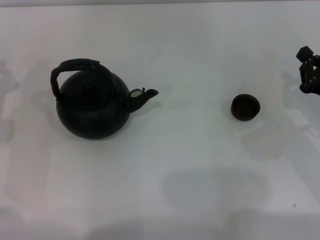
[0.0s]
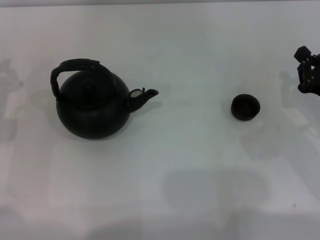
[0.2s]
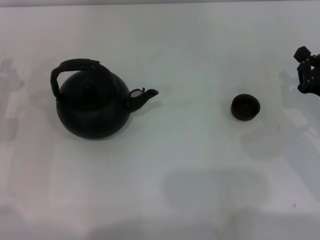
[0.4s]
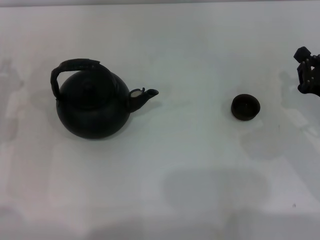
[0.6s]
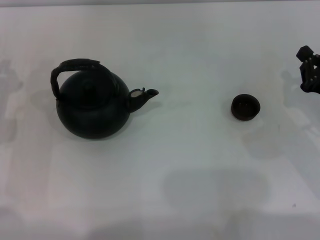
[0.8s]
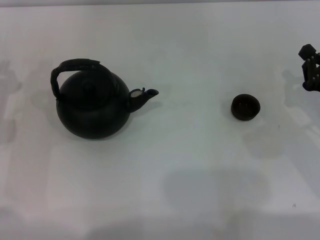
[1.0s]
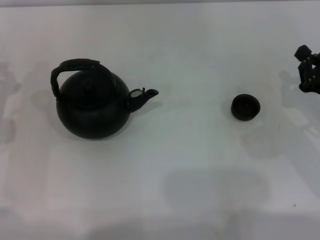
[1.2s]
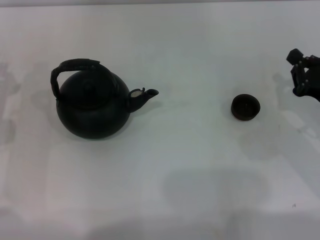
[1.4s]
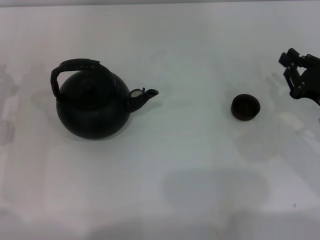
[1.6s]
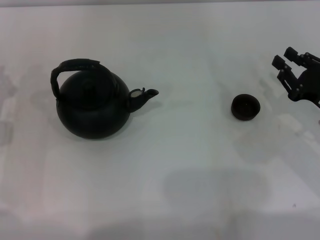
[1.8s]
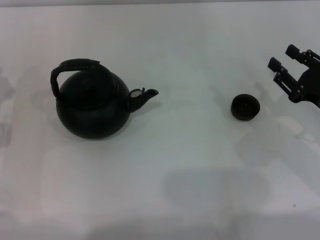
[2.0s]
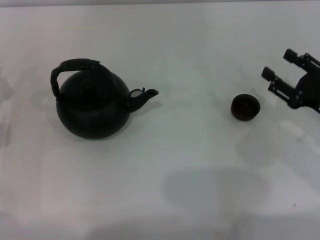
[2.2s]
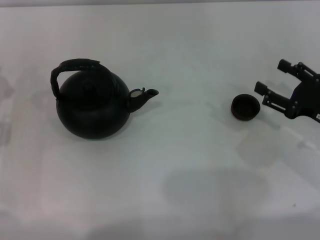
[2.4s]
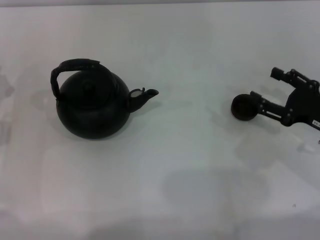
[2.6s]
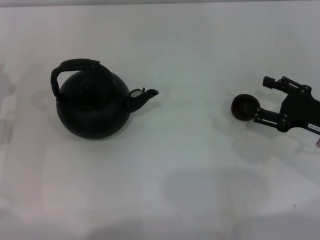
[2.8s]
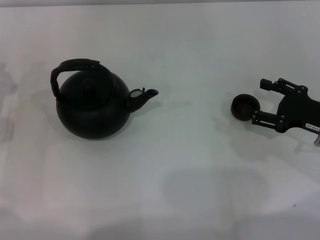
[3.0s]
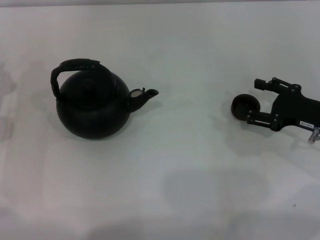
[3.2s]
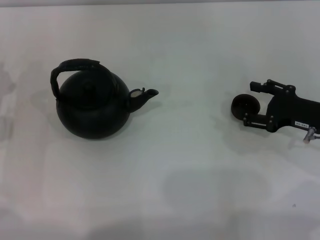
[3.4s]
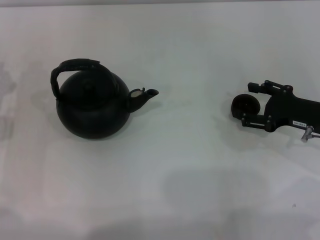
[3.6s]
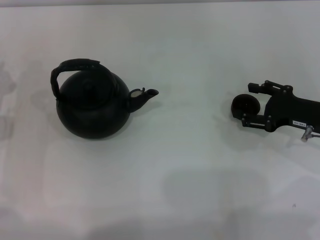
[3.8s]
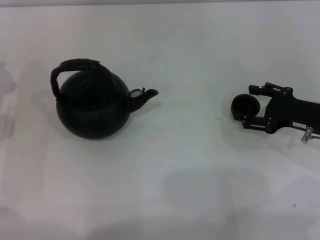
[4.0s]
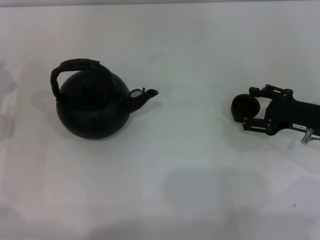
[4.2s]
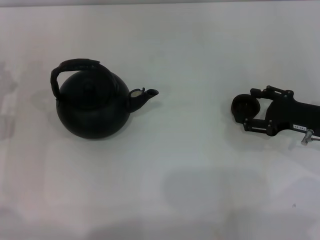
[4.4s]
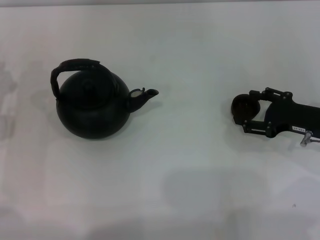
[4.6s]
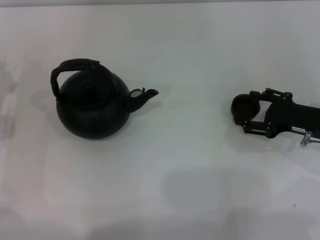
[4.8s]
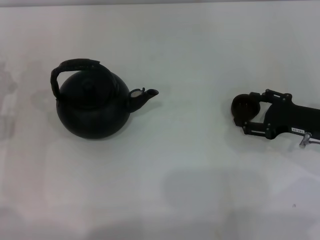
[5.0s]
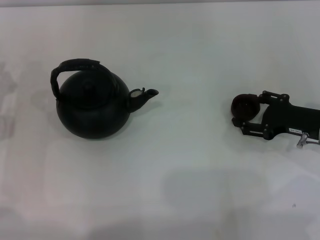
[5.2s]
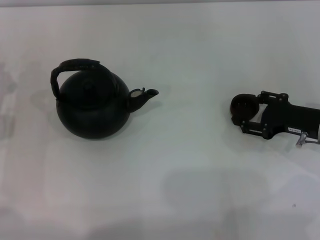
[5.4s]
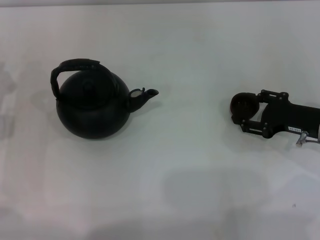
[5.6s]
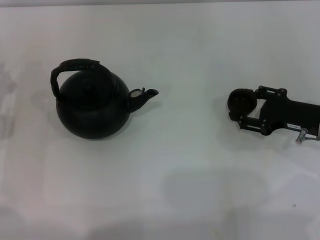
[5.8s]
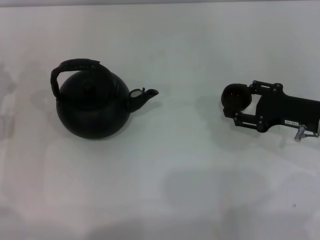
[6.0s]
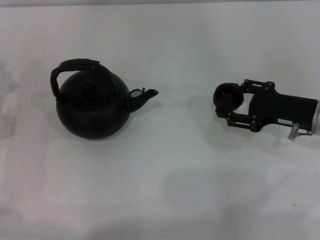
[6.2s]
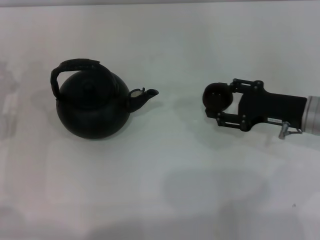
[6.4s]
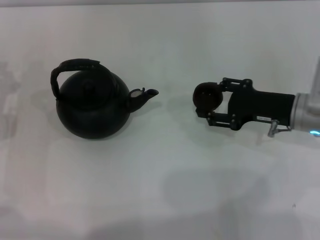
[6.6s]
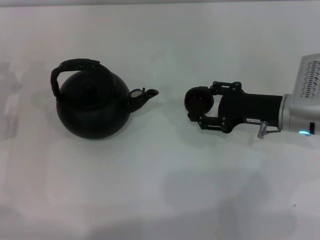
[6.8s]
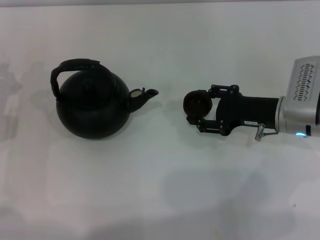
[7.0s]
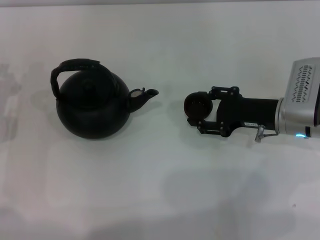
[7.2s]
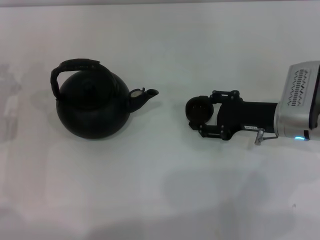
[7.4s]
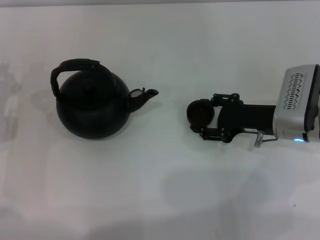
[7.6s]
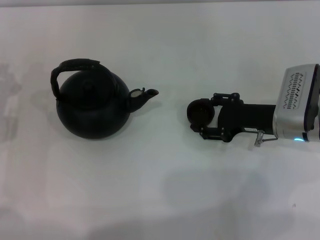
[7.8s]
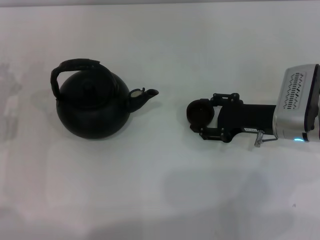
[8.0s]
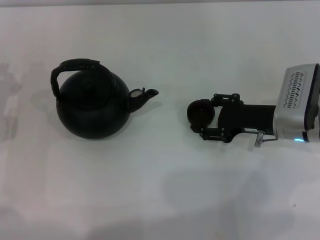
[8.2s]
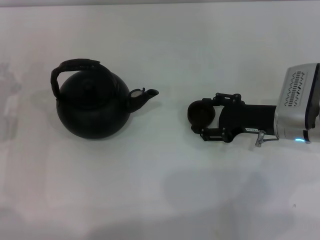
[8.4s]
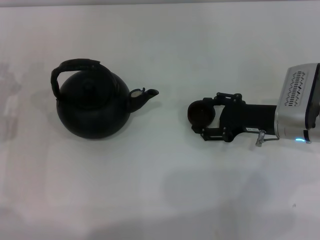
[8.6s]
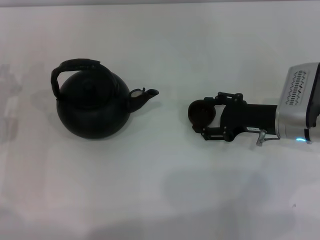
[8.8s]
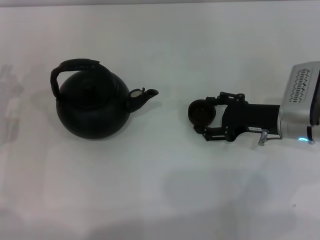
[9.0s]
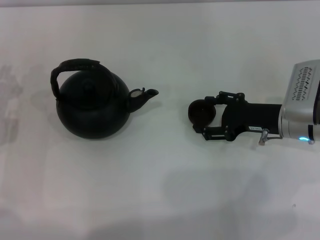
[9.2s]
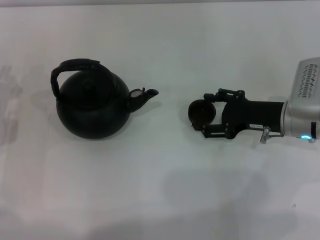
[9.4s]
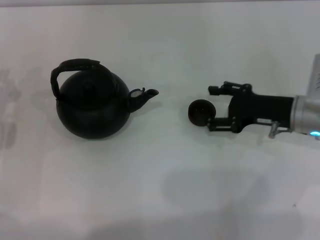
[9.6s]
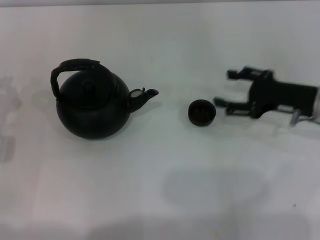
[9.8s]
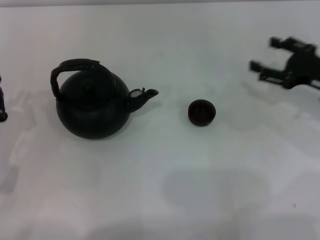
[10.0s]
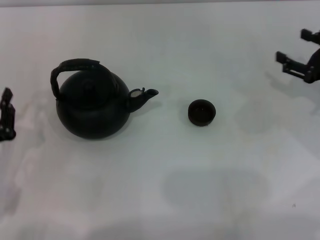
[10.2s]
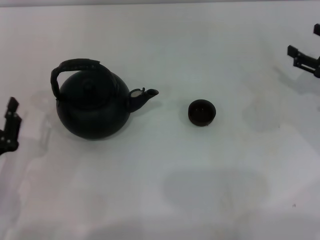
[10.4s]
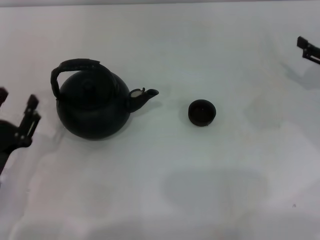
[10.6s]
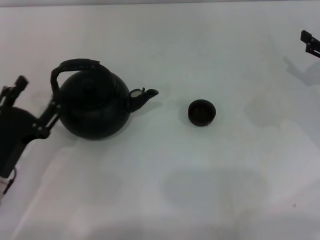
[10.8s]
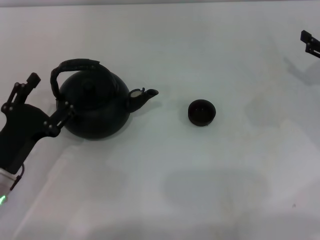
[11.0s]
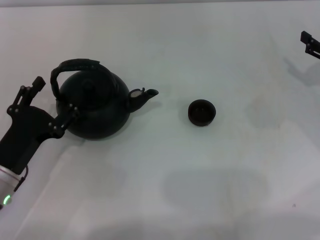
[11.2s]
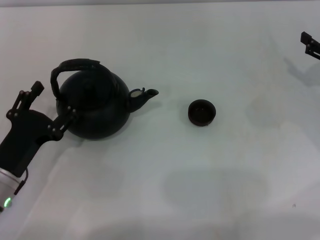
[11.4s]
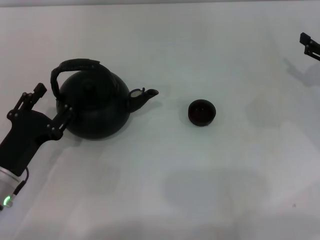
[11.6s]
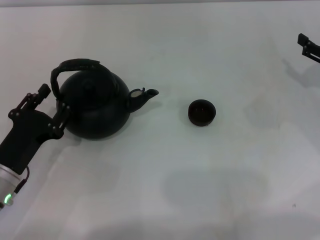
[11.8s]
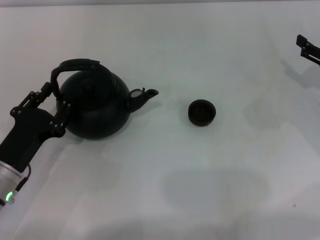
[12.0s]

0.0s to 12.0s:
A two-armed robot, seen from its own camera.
Task of the whole recording: Grasp the handle of the teapot with one hand and pour tea into the teacup.
Step, 0.0s to 6.0s: Pick up the teacup with the right gripper.
Step, 6.2s to 9.6s: Place the teacup in the center of view with the right gripper.
0.0s to 1.6s: The grippers move only a little.
1.6s to 3.0s: The right gripper opens.
3.0s to 6.0s: The grippers stay close to where they were, moving slightly.
6.0s to 7.6s: The right gripper moves to the left, some 5 cm.
7.6s to 9.0s: The two grippers keep their place.
9.0s to 10.4s: The left gripper travels backward by roughly 15 cm; the right gripper travels to the right by about 10 cm.
10.4s to 12.0s: The left gripper moves approximately 5 cm, and opens its fingers.

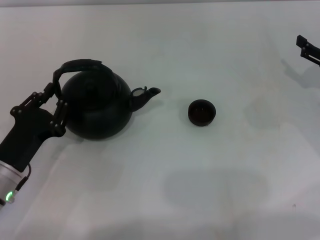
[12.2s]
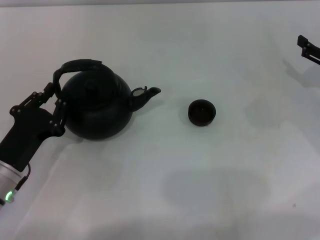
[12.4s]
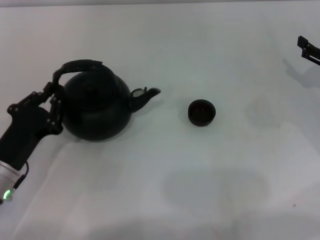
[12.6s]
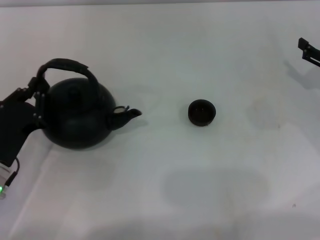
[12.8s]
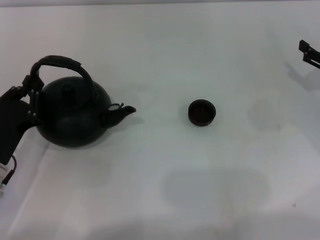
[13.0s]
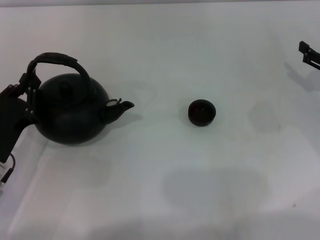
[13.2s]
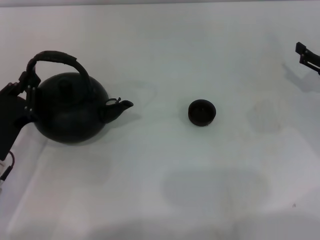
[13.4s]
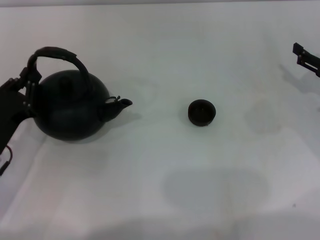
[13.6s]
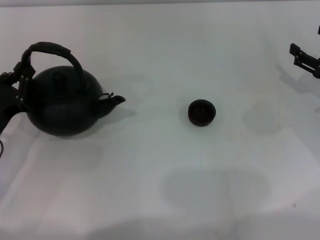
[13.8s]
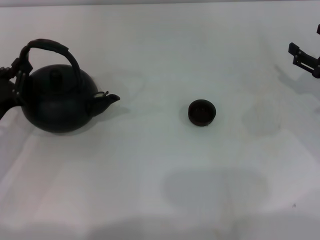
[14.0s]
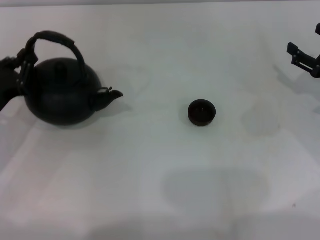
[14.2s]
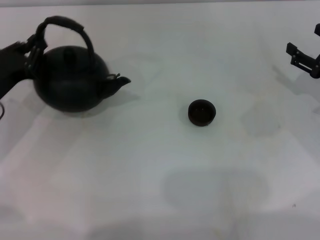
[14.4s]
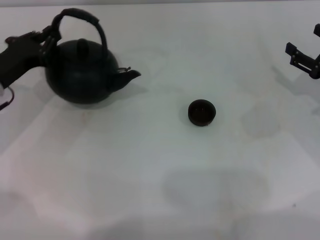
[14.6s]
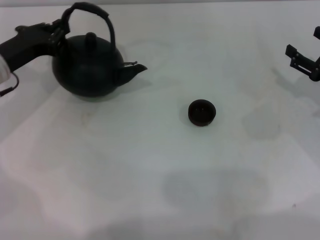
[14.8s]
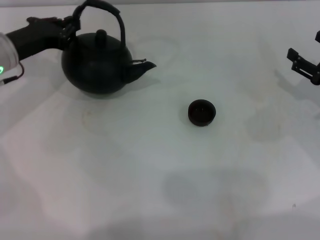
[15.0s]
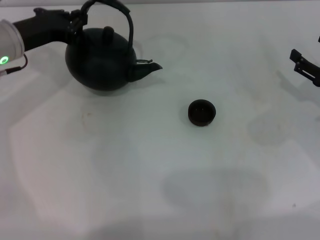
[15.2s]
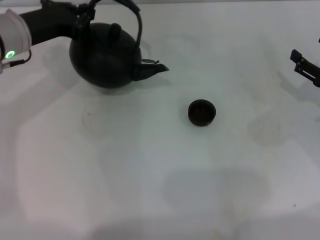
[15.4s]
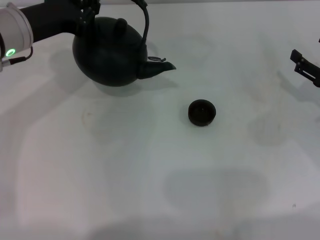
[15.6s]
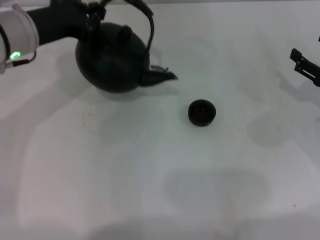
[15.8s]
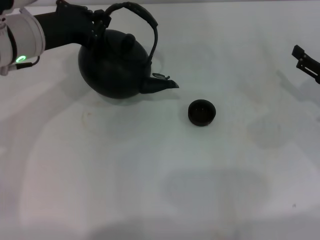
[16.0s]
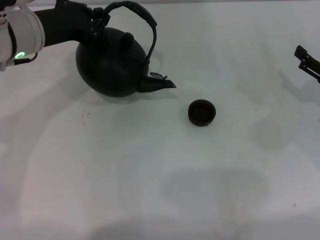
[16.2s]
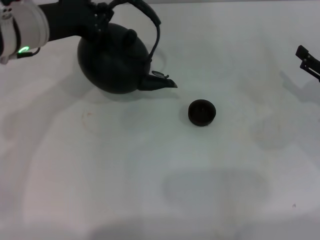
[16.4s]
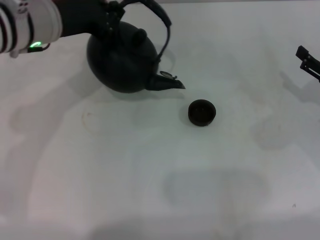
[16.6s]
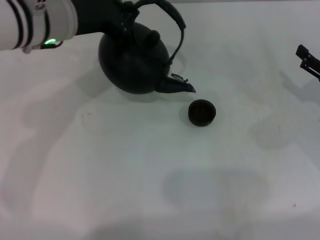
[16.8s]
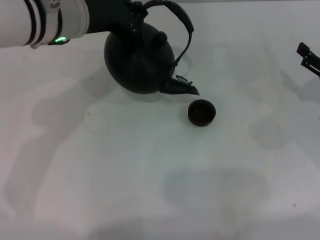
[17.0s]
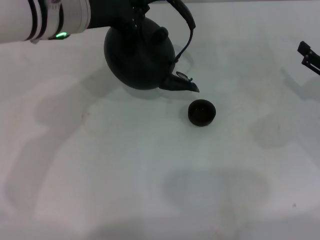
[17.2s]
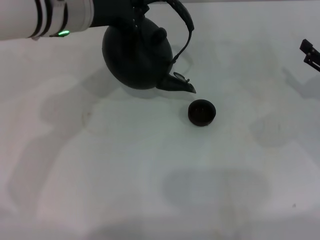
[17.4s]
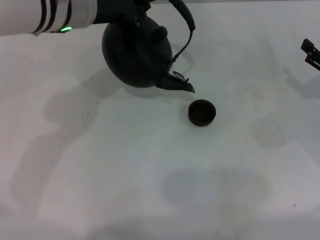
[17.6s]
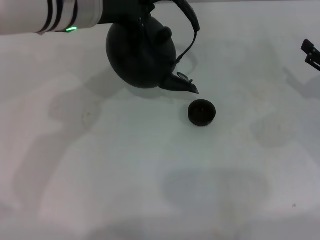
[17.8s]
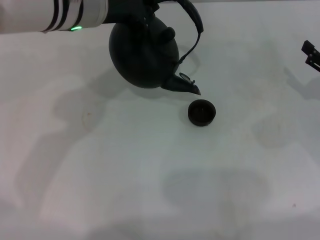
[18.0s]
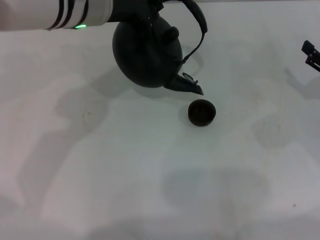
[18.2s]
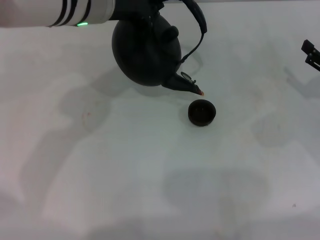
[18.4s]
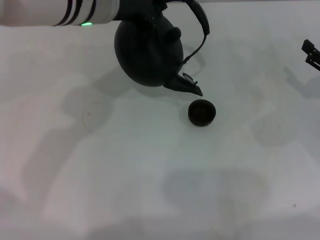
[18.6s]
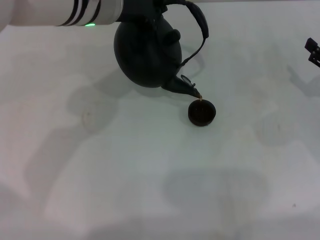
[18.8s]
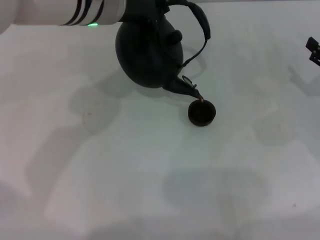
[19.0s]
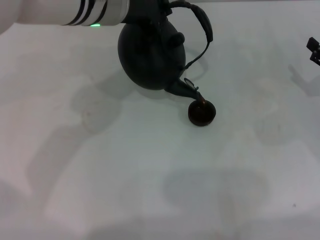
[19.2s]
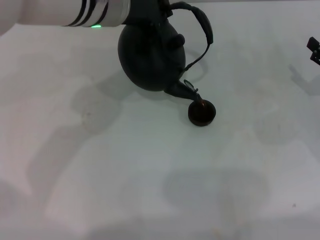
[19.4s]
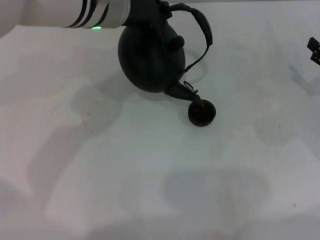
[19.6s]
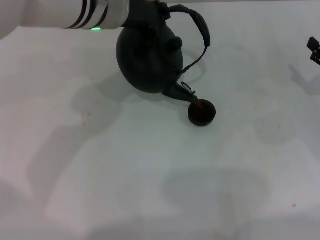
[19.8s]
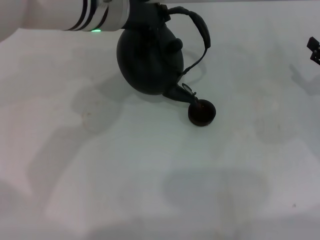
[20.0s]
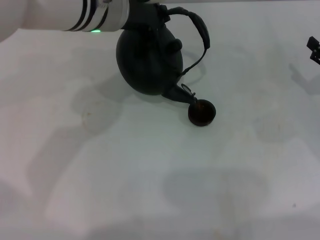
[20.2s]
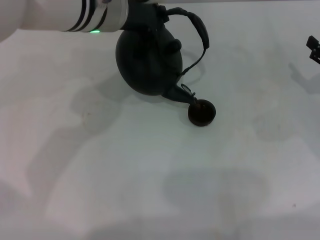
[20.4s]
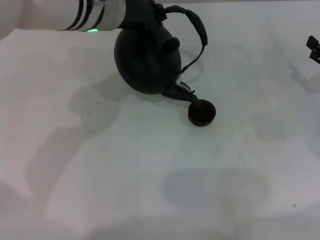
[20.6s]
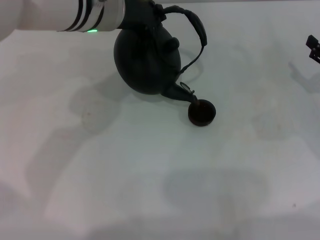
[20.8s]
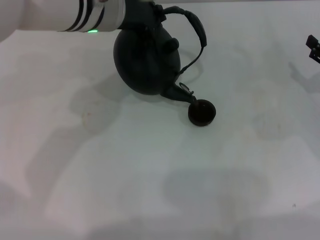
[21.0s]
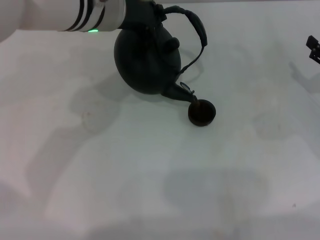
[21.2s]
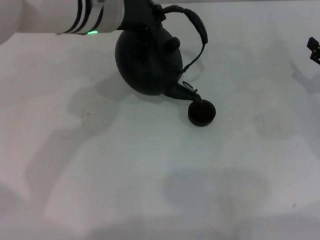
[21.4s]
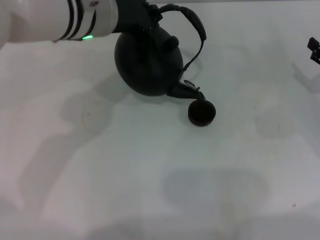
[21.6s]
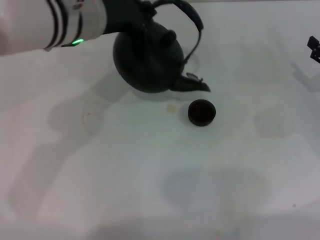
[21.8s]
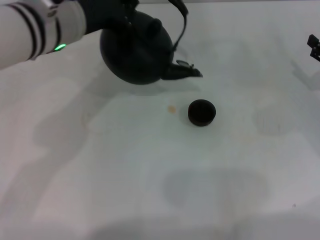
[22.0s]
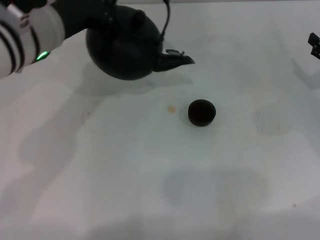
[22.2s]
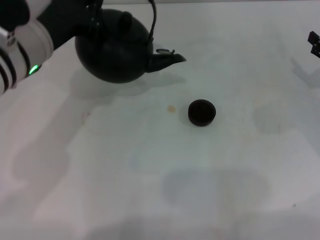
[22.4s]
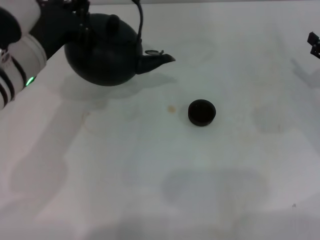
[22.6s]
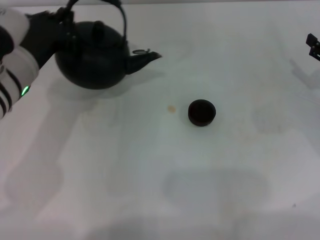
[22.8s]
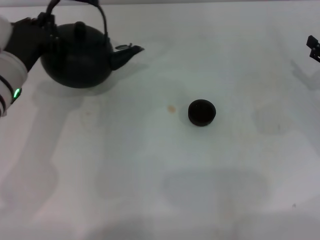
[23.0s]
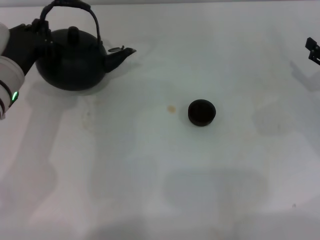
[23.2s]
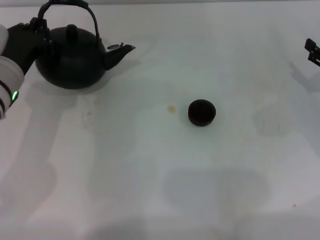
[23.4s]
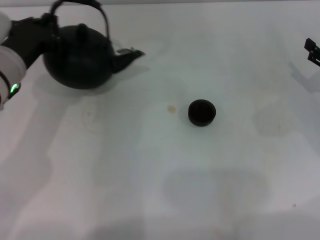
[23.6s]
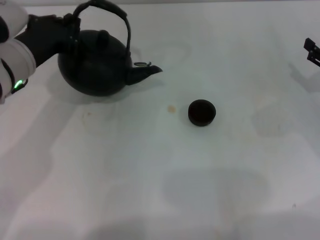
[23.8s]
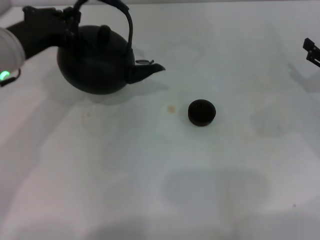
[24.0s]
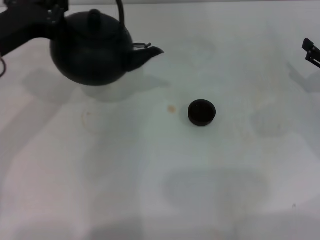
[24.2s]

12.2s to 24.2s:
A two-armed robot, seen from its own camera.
Task of the whole recording: Grasp the handle of the teapot with one hand and pour tea into the teacup.
Step, 12.2s to 14.6s: Pick up the teapot with the left gripper.
Step, 14.8s to 21.8s: Pour tea into the teacup with the left gripper.
12.2s to 13.8s: The left gripper moves roughly 5 cm, and closes its fingers.
13.8s to 15.2s: The left gripper travels forward and upward by roughly 20 cm.
15.2s to 16.6s: The left gripper shifts about 10 cm to the right and upward.
16.6s to 18.2s: The left gripper moves to the right, some 5 cm.
18.2s to 19.8s: The grippers move only a little.
19.8s to 21.2s: Neither gripper changes place.
21.2s to 22.6s: The left gripper moves to the left, backward and downward, about 10 cm.
22.6s to 24.2s: The left gripper travels to the left by approximately 5 cm.
